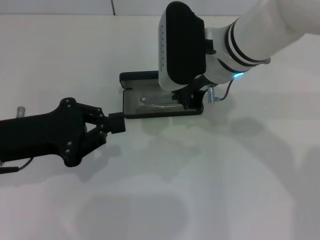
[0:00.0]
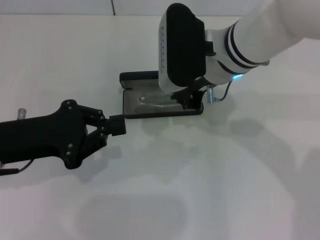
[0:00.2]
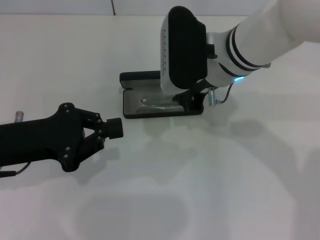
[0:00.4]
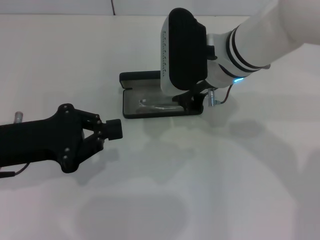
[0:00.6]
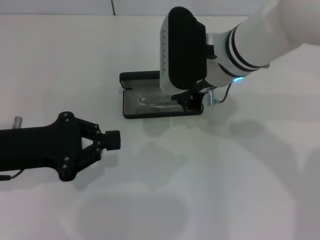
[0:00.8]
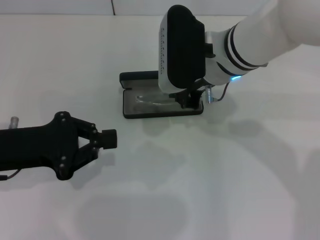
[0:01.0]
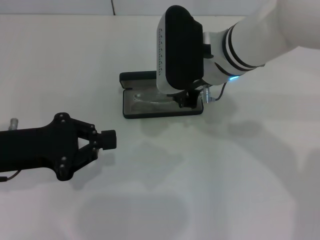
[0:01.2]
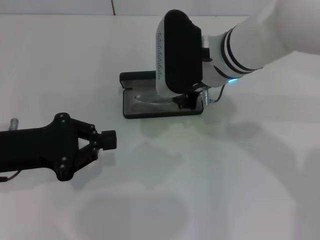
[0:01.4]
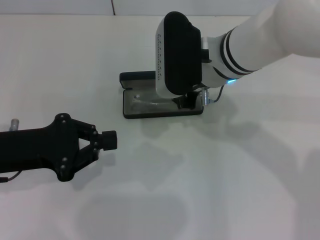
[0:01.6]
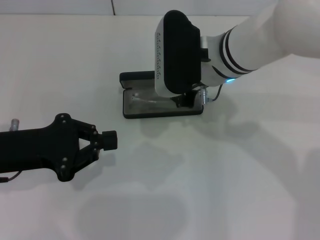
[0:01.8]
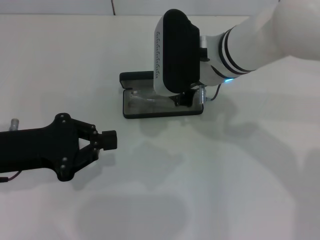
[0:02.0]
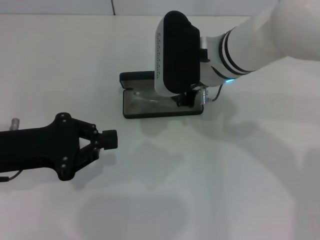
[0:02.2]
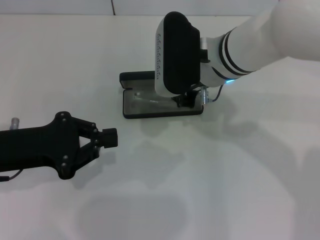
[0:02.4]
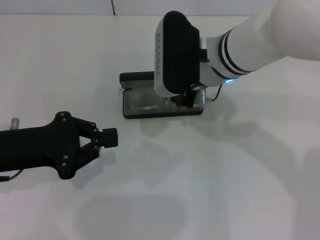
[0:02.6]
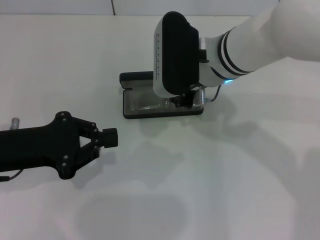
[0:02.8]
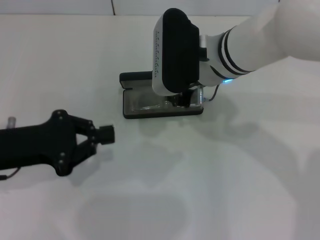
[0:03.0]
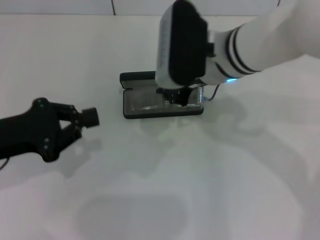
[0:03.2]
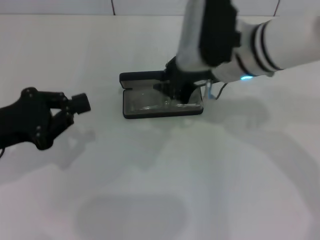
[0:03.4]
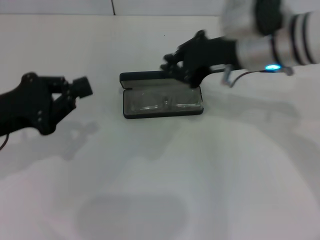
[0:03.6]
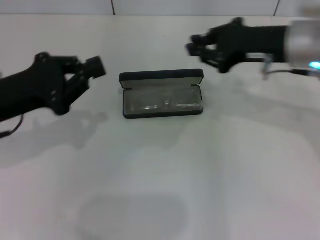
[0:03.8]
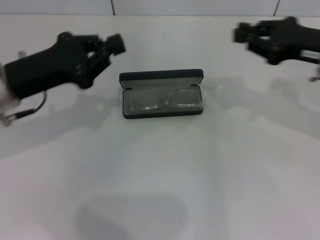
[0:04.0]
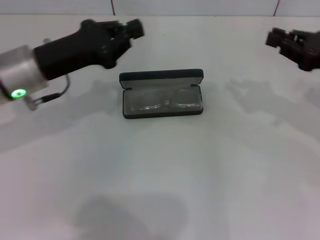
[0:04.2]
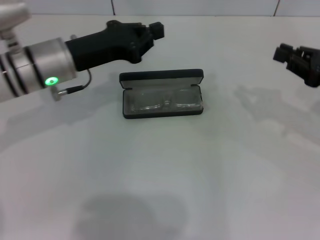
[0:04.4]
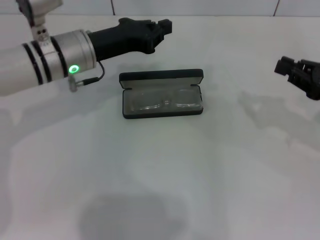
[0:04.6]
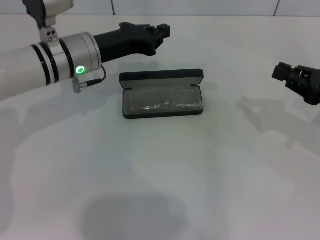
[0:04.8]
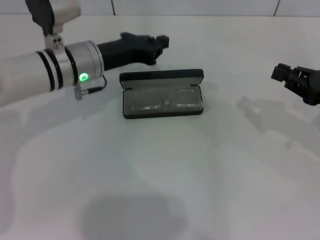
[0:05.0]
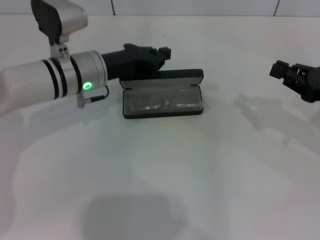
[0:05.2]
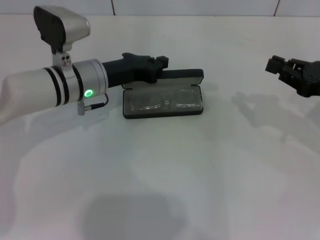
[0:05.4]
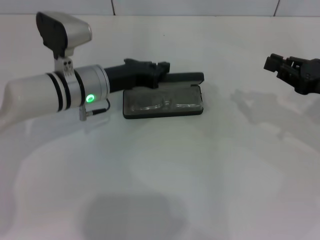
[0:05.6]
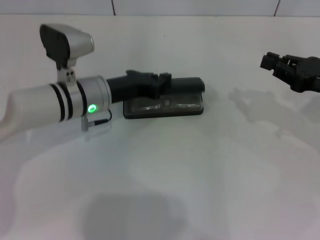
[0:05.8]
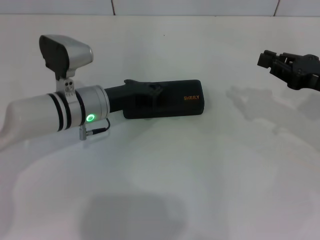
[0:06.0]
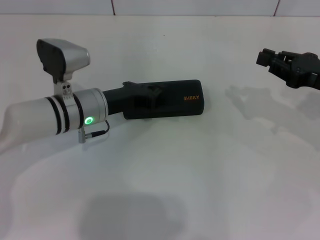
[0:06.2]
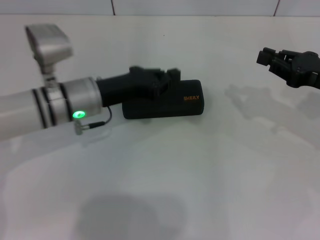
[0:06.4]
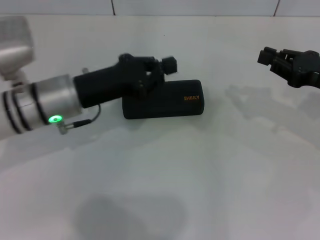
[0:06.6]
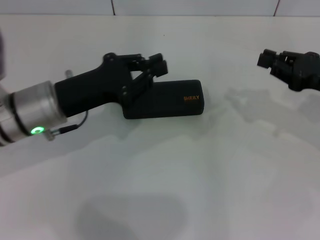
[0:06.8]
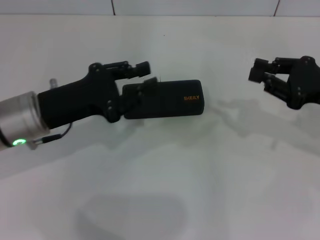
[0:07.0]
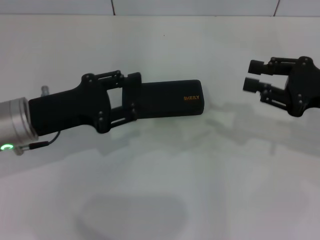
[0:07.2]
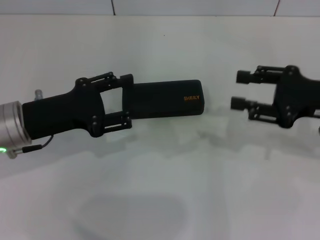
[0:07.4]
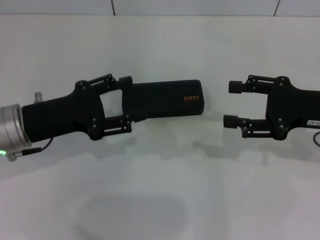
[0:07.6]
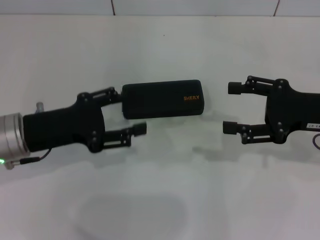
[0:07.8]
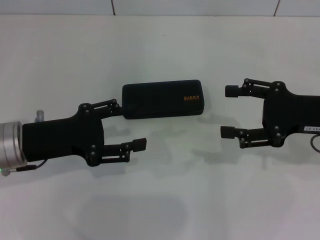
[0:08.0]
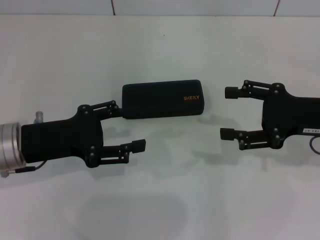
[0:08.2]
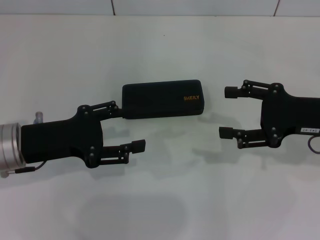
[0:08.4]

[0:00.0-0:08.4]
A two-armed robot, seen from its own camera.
Step, 0:00.0 to 0:03.2: Put the glasses into the case with your right hand.
Step, 0:03.4 to 0:06.0: Close the glasses case with your left hand.
0:00.0 to 0:01.4: There are only small adjustments of the grippers.
0:01.4 to 0:02.8: Both grippers stay about where they are.
0:02.8 to 0:04.2: The left gripper shifts approximately 10 cm forward, while the right gripper heads to the right, covering about 25 cm.
0:04.2 to 0:05.6: The left gripper travels to the right and downward by approximately 10 cm.
0:05.6 to 0:07.0: The left gripper travels backward and to the left by some 10 cm.
0:07.0 to 0:08.4: The left gripper opens, while the right gripper opens up.

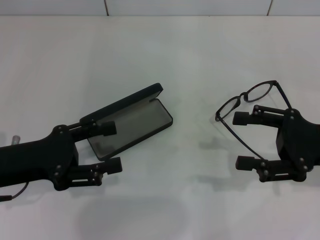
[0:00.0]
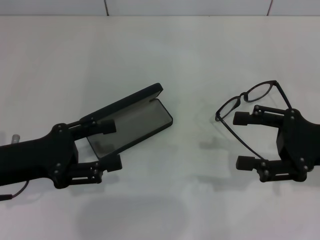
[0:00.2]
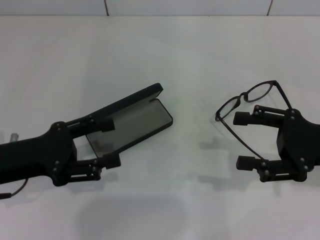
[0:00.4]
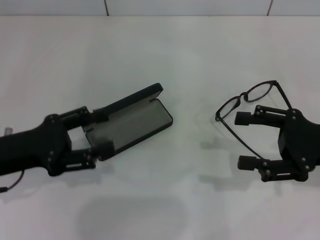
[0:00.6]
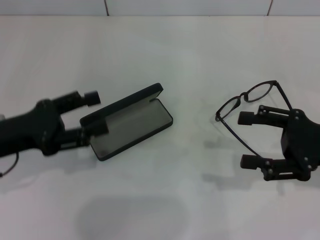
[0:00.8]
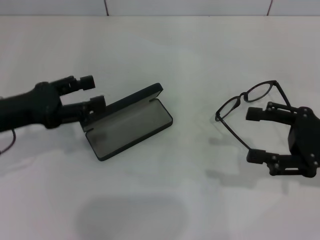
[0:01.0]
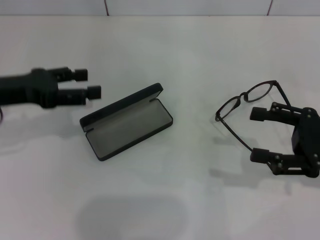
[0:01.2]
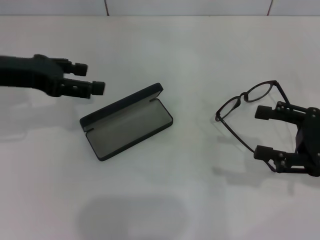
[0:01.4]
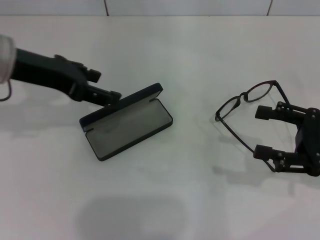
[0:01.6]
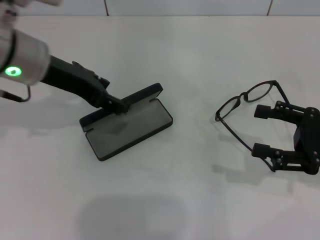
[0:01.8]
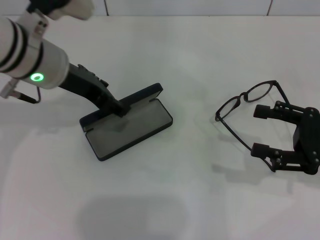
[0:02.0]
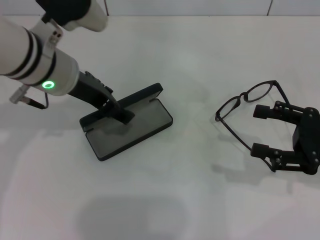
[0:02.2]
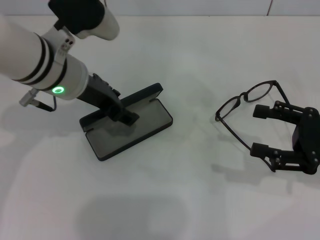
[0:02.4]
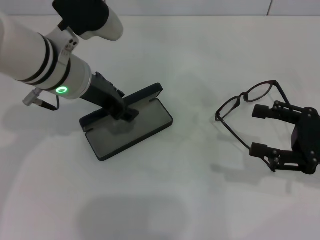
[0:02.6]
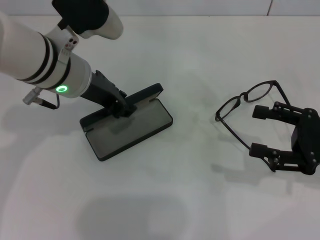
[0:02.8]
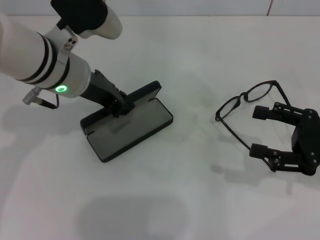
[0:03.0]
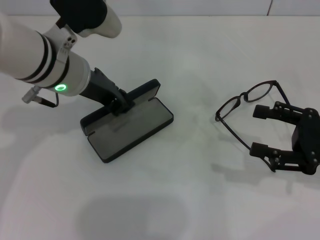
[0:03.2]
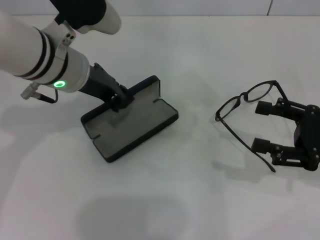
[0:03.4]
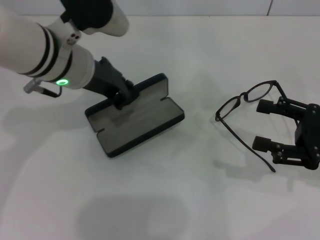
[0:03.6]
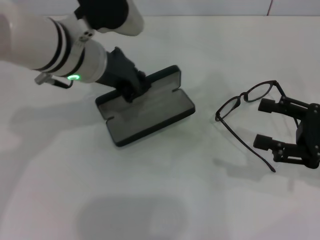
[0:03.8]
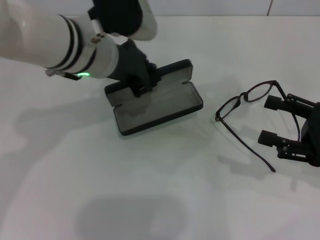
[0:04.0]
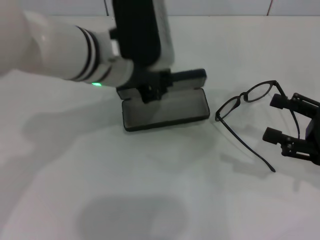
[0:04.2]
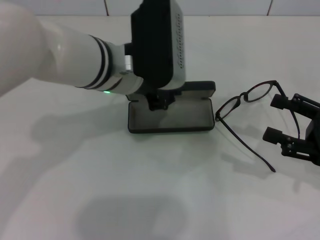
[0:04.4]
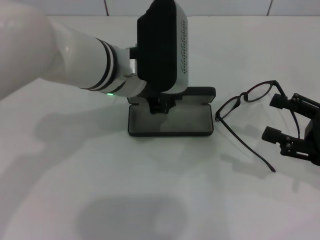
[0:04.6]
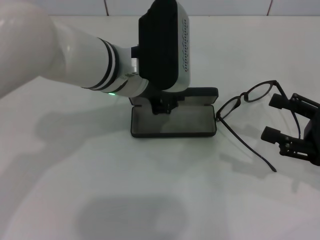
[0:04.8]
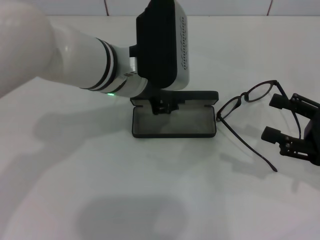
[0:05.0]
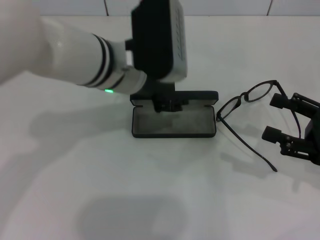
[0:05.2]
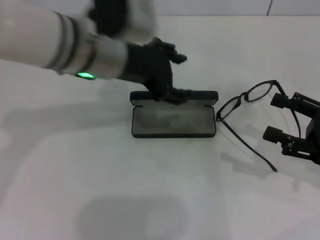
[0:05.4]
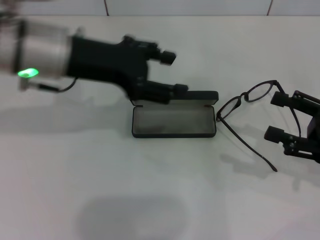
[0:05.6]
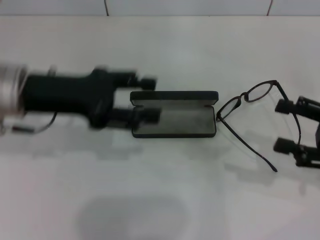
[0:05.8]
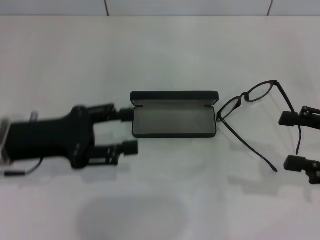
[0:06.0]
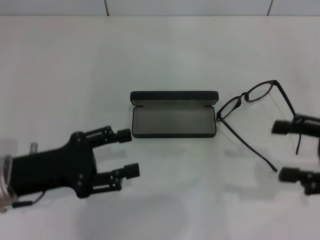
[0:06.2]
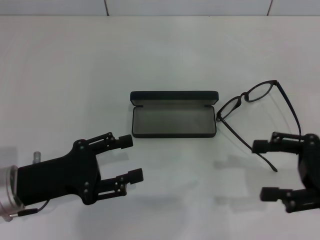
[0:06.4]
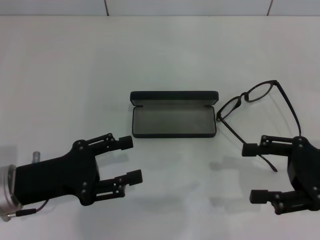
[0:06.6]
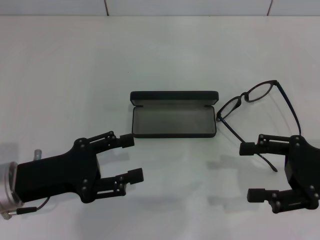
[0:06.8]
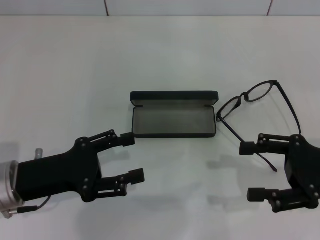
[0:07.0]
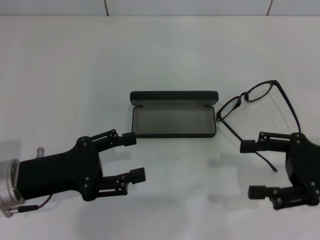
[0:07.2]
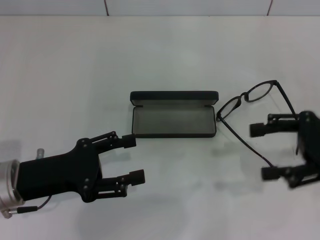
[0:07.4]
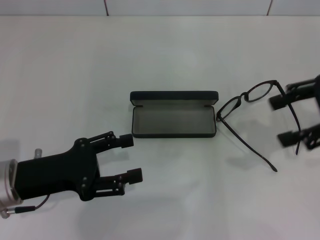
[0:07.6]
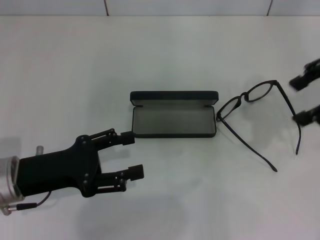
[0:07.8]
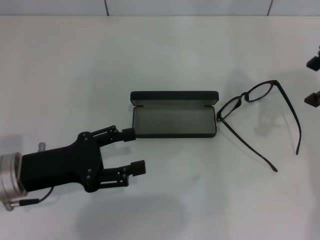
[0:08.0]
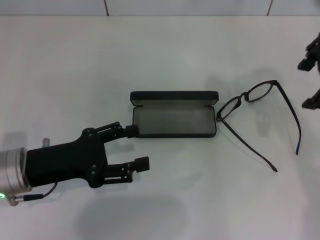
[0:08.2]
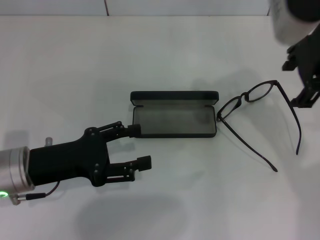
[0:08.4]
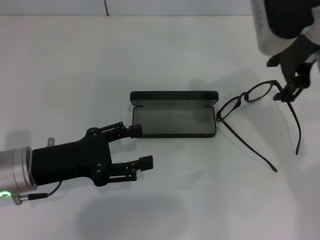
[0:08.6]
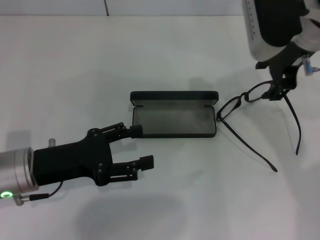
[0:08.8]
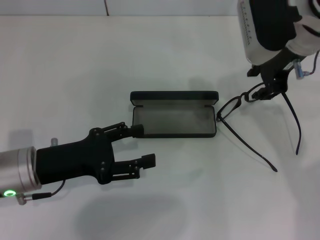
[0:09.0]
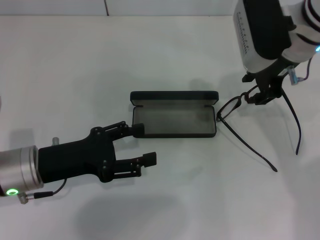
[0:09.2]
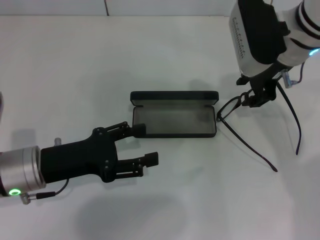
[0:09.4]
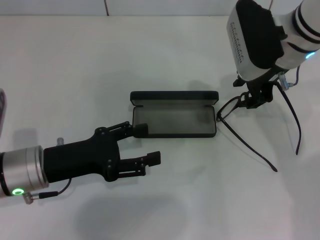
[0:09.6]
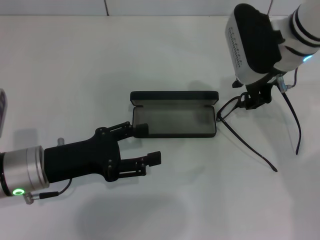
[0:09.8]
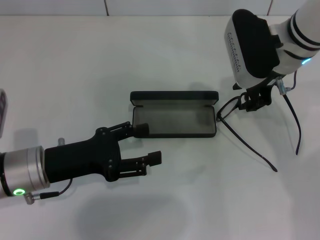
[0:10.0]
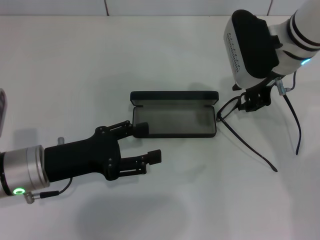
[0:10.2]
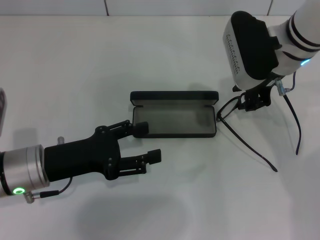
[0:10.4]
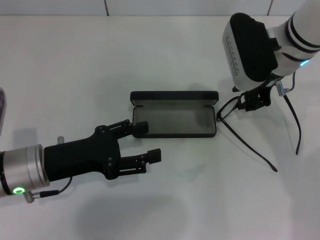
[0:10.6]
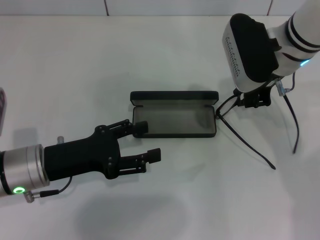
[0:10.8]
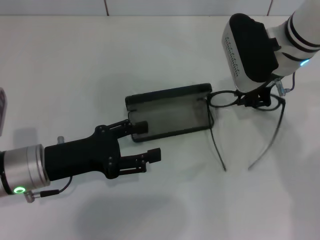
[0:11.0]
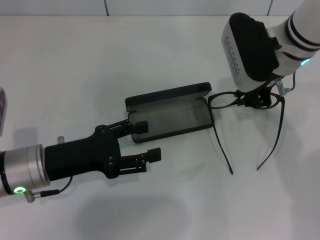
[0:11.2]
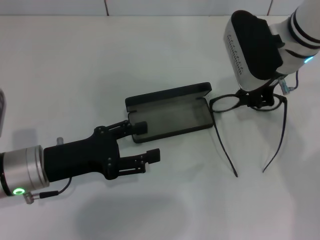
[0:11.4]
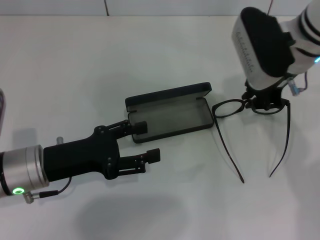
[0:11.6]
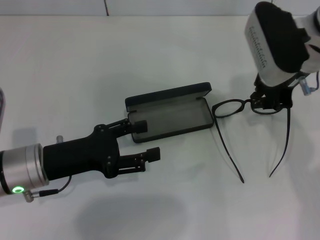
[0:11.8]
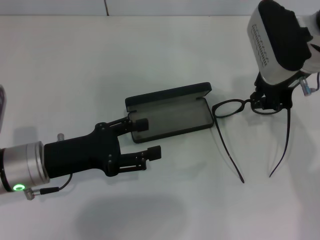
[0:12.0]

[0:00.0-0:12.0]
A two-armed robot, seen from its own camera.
Step, 0:00.0 to 0:02.8: Grab the glasses case with your left hand.
Step, 0:03.2 to 0:05.0: Place the glasses case in the center of the table with your left hand.
0:00.0 to 0:01.6: The left gripper heads upward and forward, covering roughly 15 cm.
0:01.6 to 0:03.0: The left gripper heads to the right, covering approximately 10 cm, and closes up.
0:03.0 to 0:04.4: The left gripper moves to the right, some 5 cm.
0:04.4 to 0:06.0: The left gripper travels to the left and backward by some 20 cm, and opens up.
0:06.0 to 0:07.6: The left gripper changes place by roughly 5 cm. The right gripper goes roughly 10 cm upward and forward.
0:07.6 to 0:09.0: The right gripper goes some 15 cm to the left and forward.
0:09.0 to 0:10.4: The right gripper shifts by roughly 5 cm.
0:10.4 to 0:12.0: The grippers make only small movements.

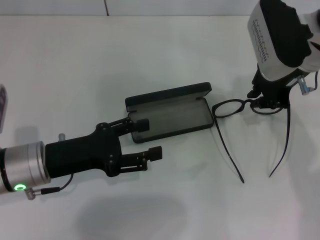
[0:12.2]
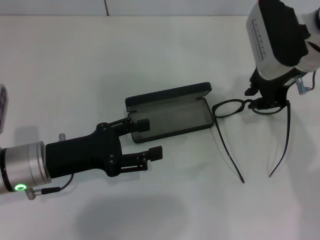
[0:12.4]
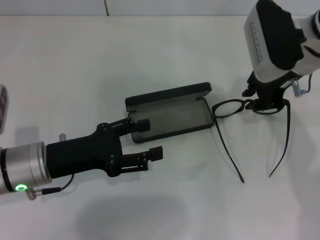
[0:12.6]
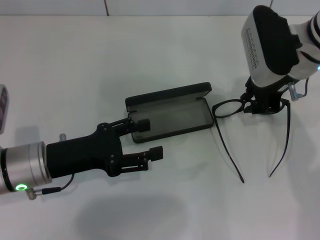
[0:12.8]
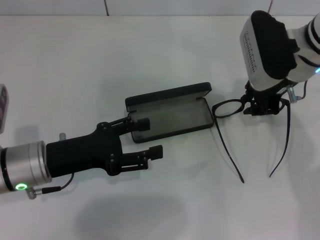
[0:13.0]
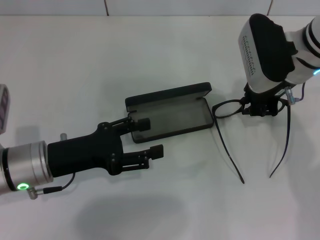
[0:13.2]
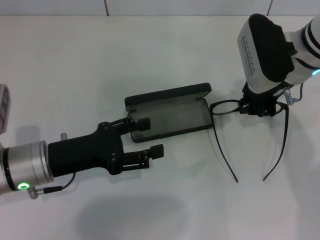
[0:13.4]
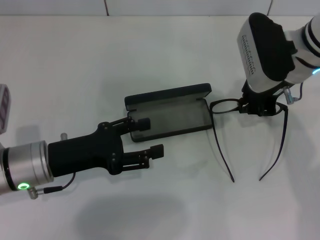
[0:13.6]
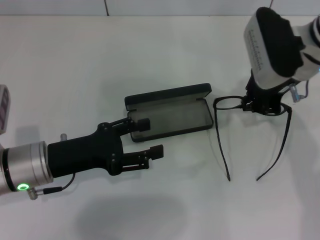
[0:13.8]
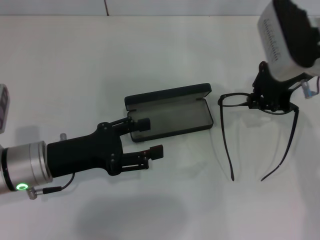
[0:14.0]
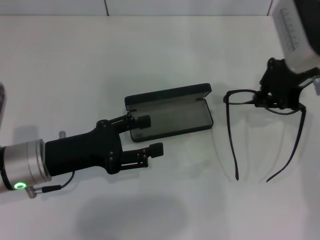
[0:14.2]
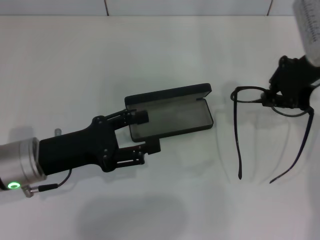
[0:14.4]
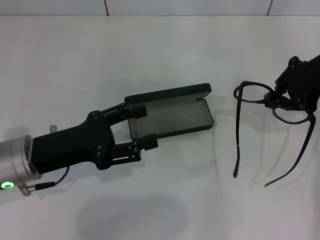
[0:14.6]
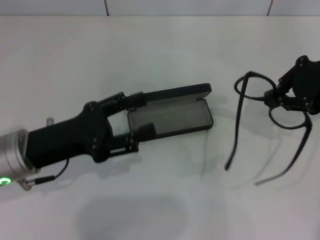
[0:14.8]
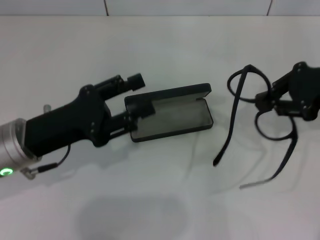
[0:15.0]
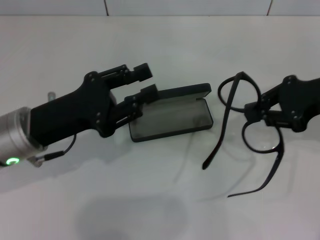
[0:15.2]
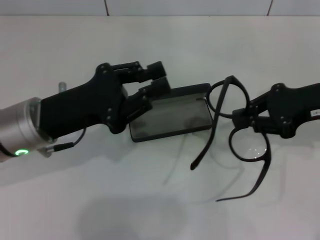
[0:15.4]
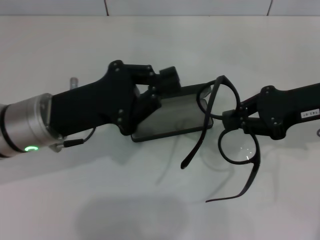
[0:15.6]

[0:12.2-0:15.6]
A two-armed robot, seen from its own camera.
0:12.2 to 0:13.8: The grippers make only small movements.
0:13.8 to 0:15.6: The left gripper shifts some 5 cm upward, and closes up; the right gripper moves to the right and backward, approximately 10 cm.
